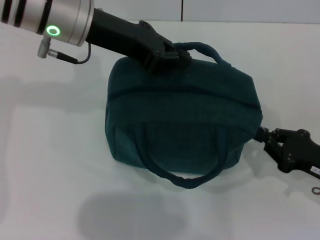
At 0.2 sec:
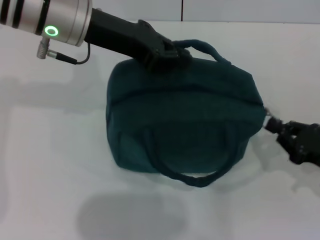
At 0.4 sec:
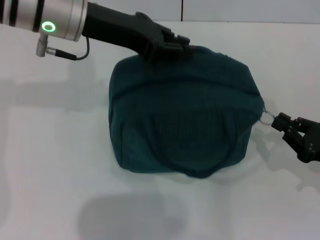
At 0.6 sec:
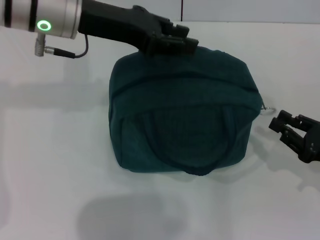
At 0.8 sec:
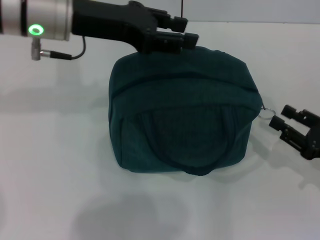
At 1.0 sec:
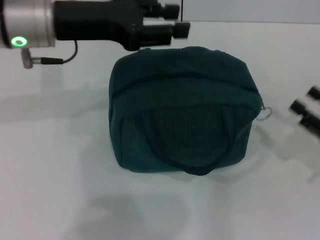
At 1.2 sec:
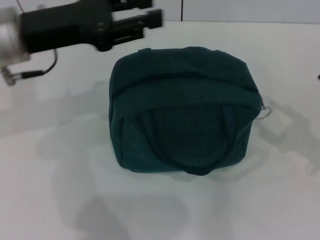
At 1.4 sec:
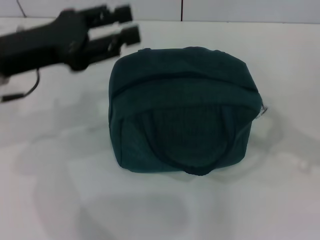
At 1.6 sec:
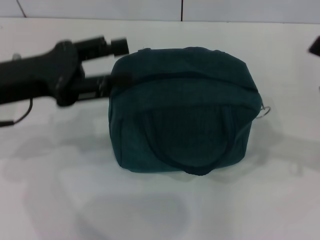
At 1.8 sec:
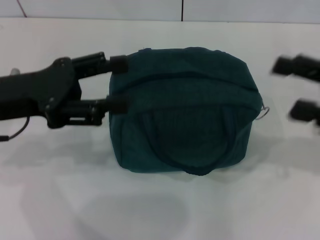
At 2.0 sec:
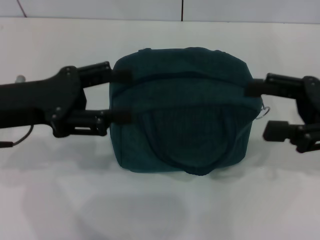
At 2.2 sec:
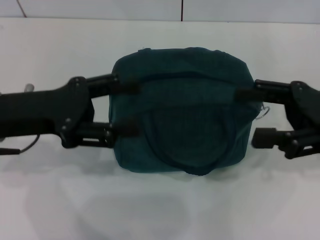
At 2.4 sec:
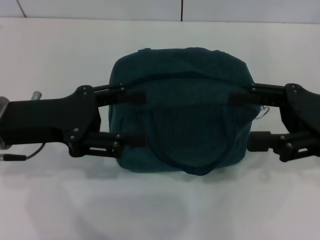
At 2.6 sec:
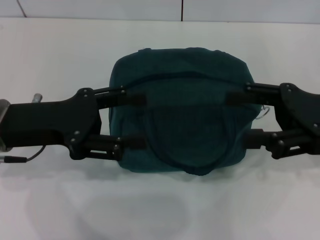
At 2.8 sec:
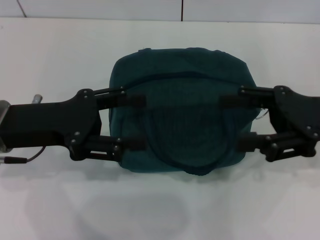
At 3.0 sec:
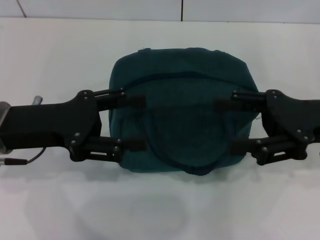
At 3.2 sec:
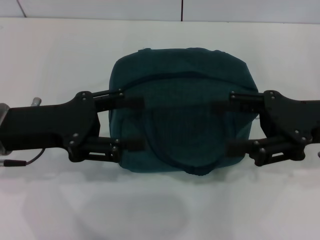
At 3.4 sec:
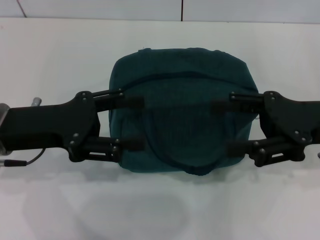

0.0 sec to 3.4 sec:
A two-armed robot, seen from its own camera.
Step, 0.6 sec to 0.8 sec: Hold the lunch bag with your left hand.
0.0 sec to 1.6 sec: The left gripper goes roughly 15 cm to the left, backward and downward, and opens. The right gripper heads upward, covering roughly 15 cm, and opens up.
1.6 sec to 3.4 sec: The right gripper moves to the left, roughly 10 cm.
